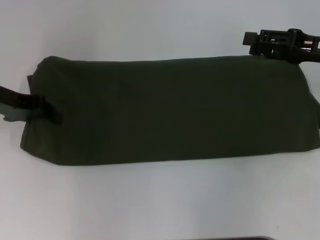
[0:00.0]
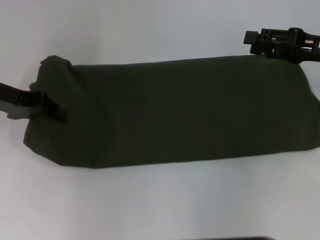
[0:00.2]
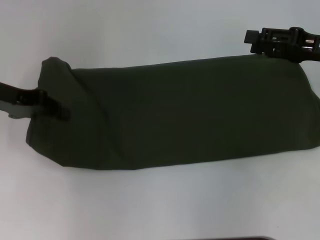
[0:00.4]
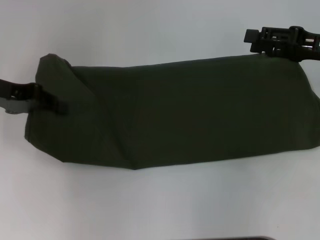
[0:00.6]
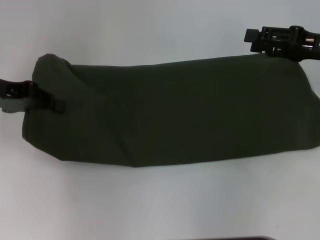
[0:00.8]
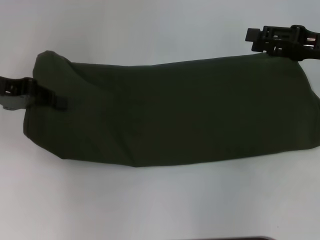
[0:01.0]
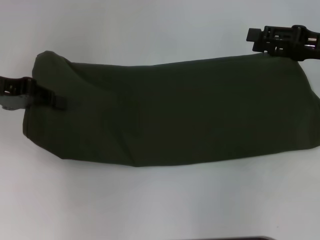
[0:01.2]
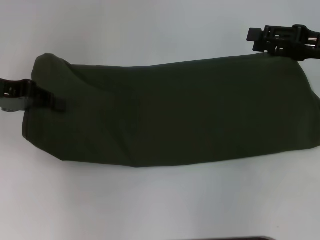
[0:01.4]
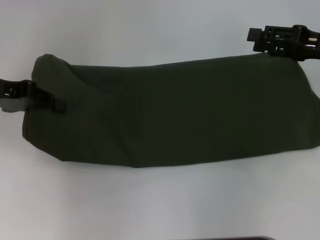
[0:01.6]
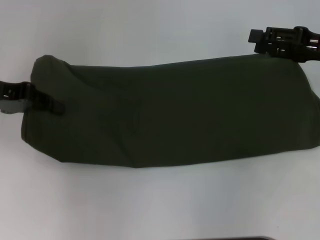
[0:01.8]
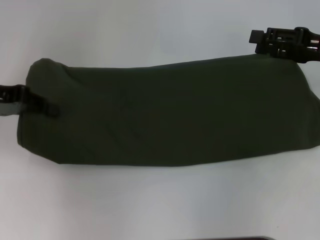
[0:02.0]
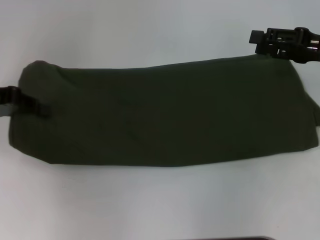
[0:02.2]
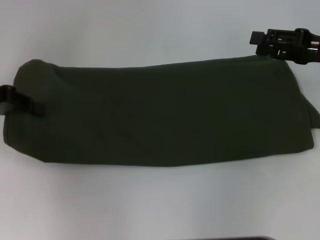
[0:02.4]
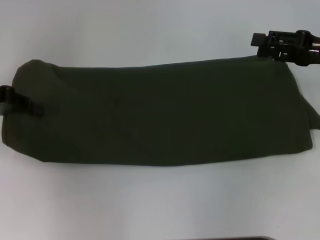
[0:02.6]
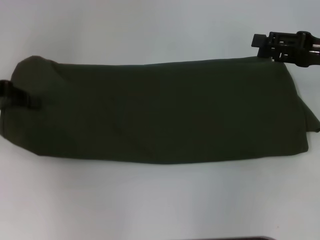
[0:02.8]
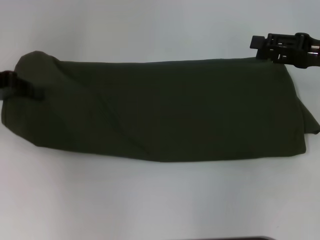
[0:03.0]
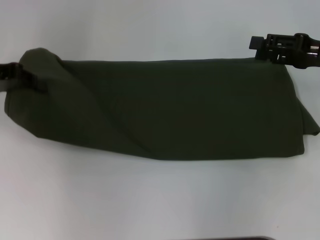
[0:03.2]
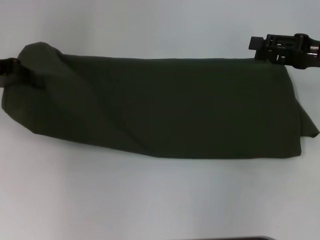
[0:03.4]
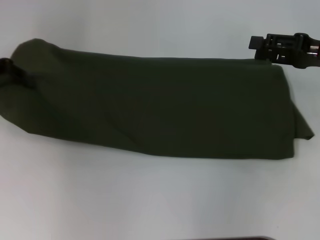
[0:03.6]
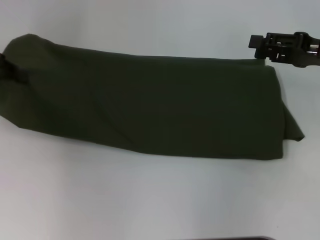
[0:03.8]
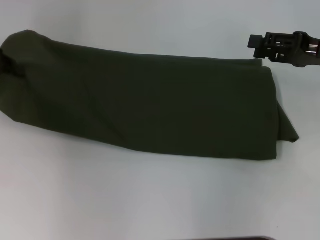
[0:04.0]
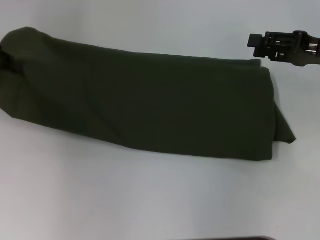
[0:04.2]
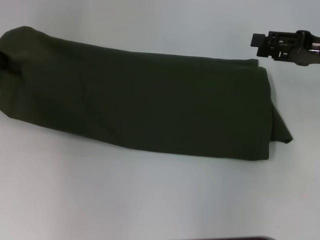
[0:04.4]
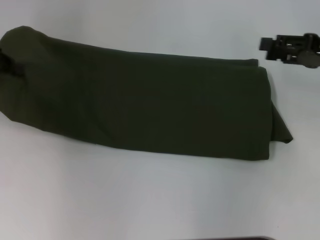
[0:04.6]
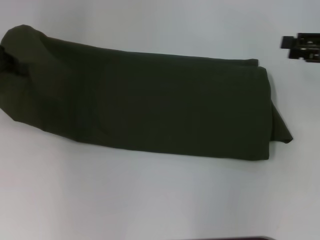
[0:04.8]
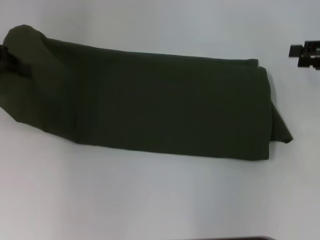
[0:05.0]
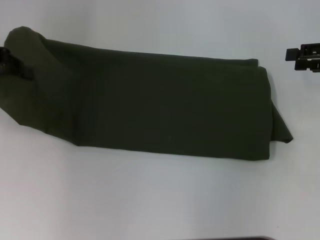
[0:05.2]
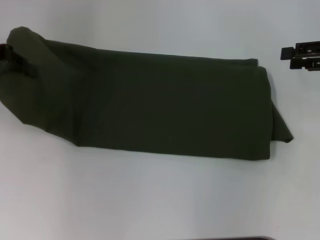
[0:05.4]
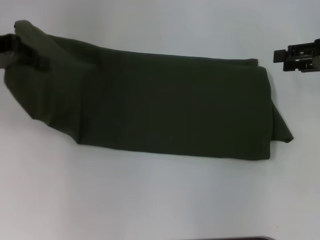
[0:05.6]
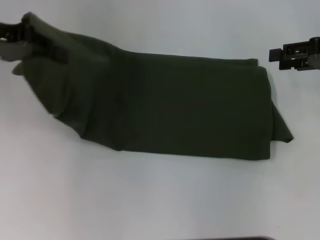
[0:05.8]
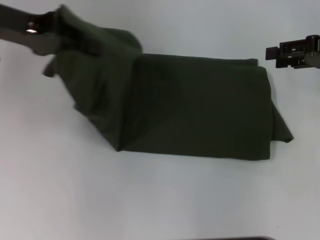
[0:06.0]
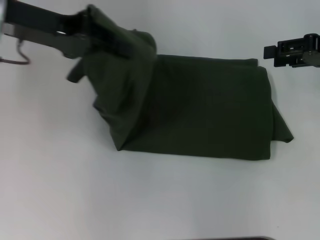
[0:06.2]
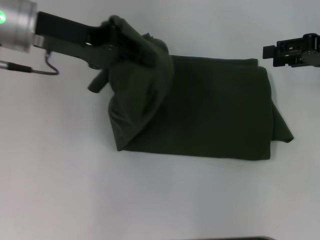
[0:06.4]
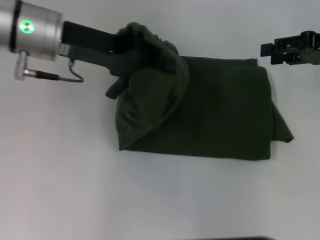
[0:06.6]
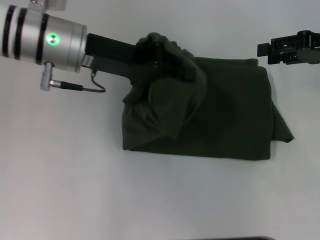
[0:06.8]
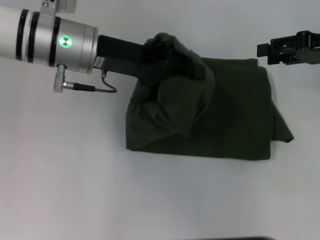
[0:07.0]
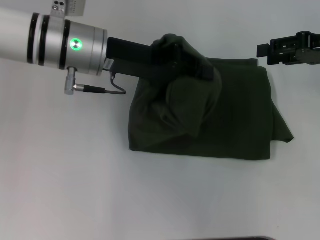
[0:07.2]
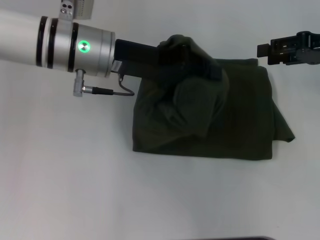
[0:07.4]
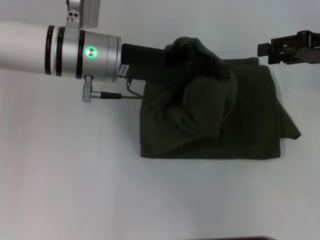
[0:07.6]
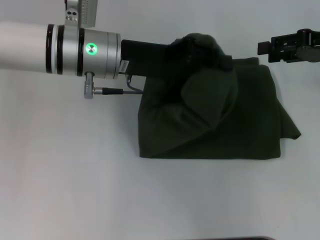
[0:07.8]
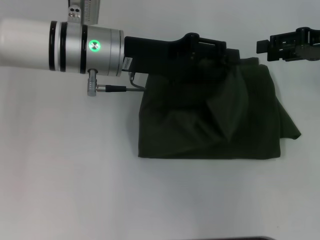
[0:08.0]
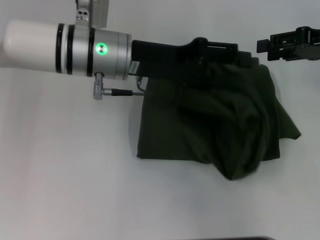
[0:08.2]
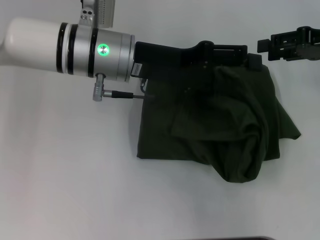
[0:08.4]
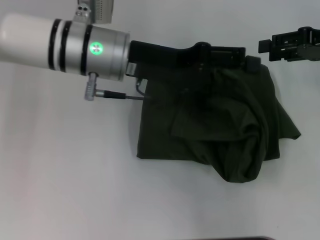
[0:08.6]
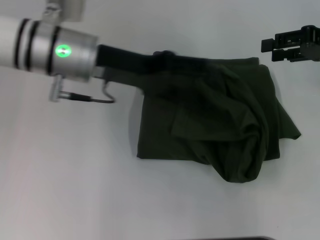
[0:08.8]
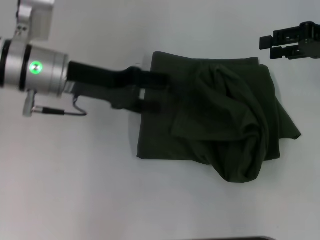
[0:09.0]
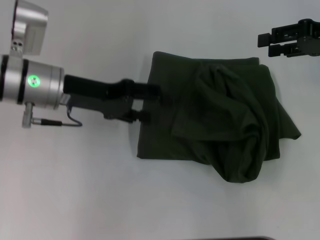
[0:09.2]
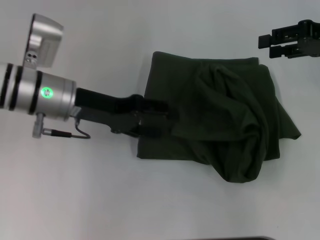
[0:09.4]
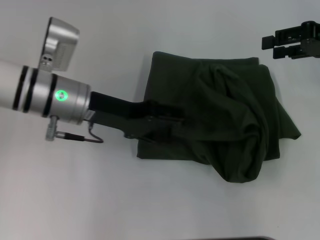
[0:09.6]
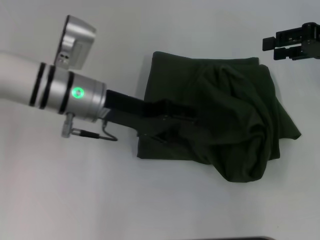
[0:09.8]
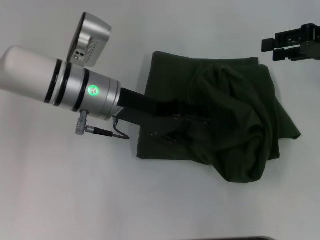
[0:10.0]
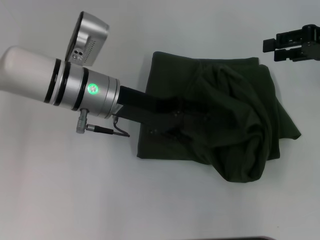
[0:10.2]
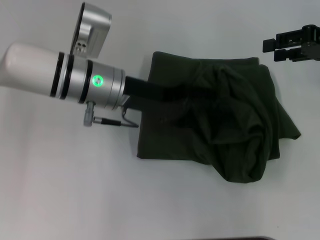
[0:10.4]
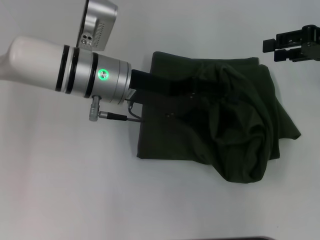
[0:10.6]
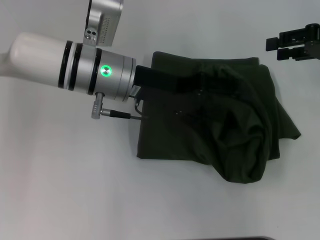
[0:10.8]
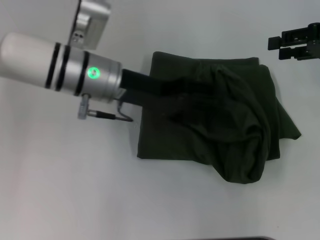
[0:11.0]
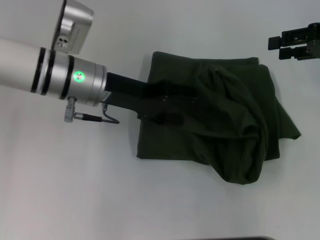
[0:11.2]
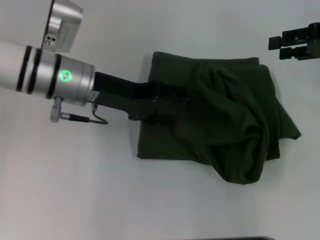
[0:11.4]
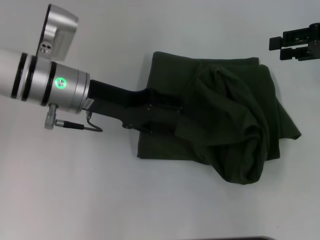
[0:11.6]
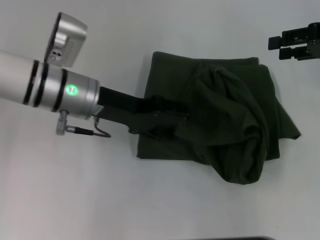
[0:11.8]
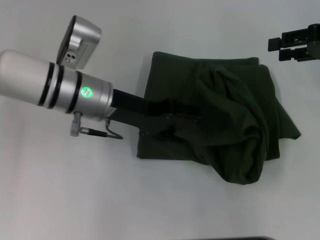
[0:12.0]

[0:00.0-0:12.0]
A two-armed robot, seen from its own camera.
0:00.0 to 0:03.0: The grippers make only small movements.
0:03.0 to 0:04.4: The grippers make only small movements.
0:04.4 to 0:06.0: The left gripper heads to the right and upward, covering some 10 cm.
0:06.0 to 0:07.6: The left gripper heads to the right and downward, covering some 15 cm.
0:07.6 to 0:09.0: The left gripper moves to the left, approximately 5 cm, and opens.
0:09.0 to 0:10.4: The left gripper is displaced to the right by roughly 5 cm.
0:10.4 to 0:12.0: The grippers make only small movements.

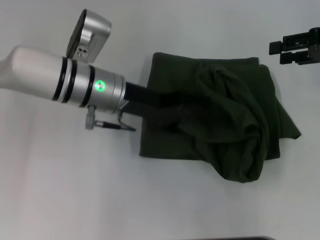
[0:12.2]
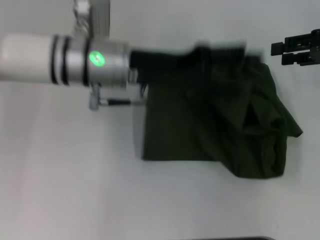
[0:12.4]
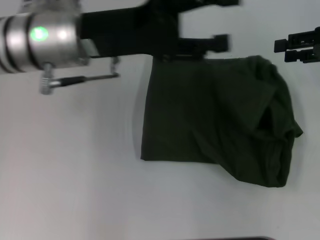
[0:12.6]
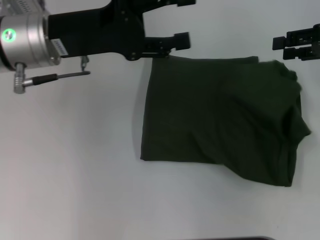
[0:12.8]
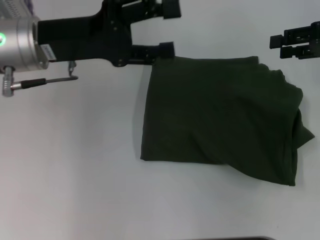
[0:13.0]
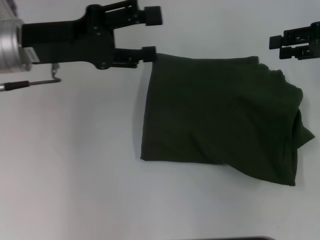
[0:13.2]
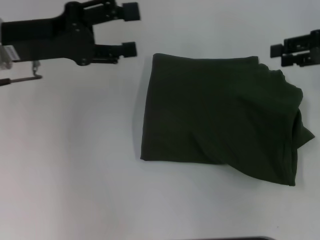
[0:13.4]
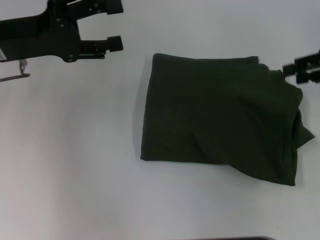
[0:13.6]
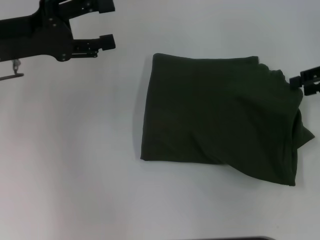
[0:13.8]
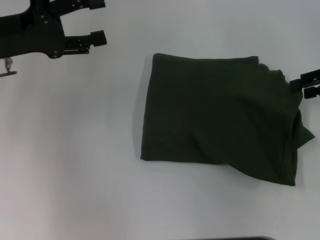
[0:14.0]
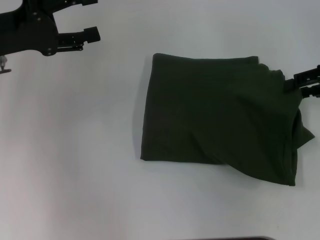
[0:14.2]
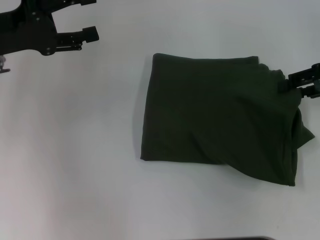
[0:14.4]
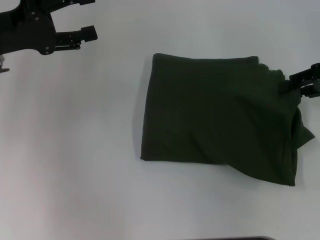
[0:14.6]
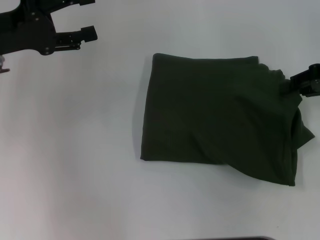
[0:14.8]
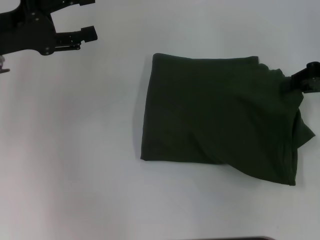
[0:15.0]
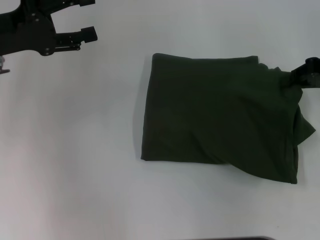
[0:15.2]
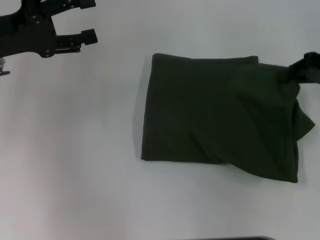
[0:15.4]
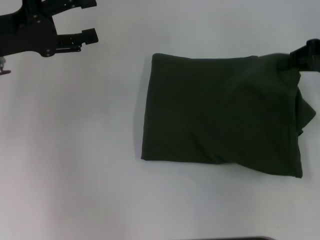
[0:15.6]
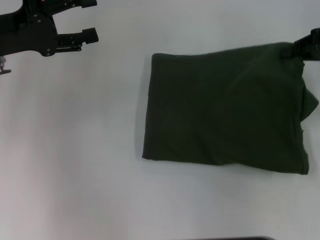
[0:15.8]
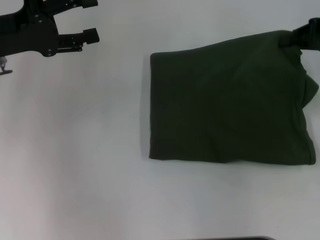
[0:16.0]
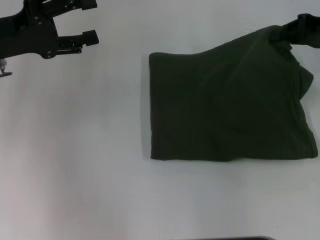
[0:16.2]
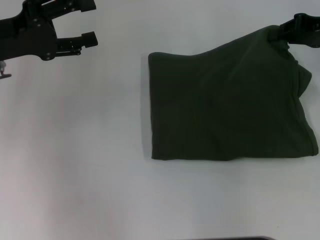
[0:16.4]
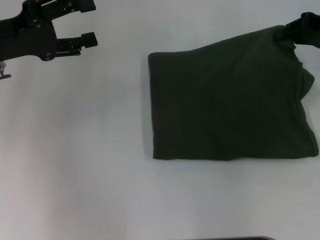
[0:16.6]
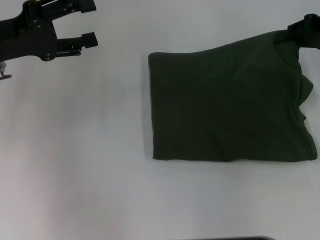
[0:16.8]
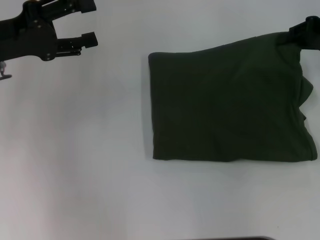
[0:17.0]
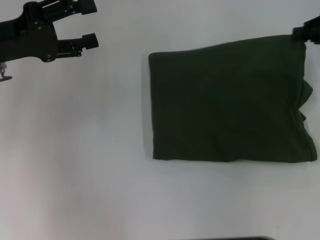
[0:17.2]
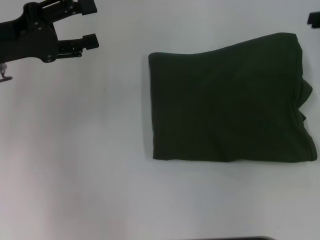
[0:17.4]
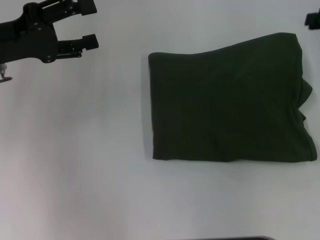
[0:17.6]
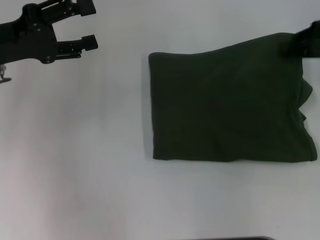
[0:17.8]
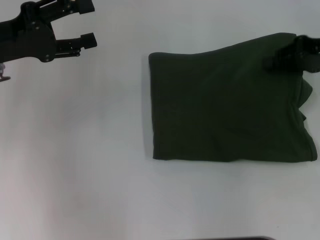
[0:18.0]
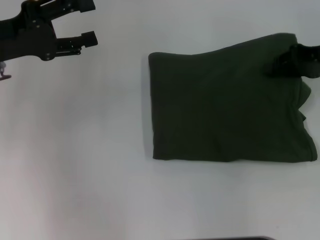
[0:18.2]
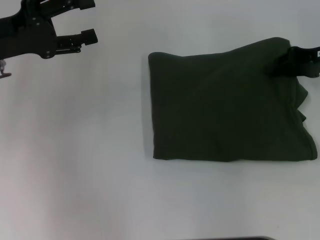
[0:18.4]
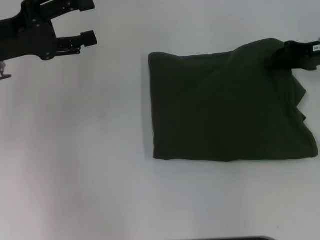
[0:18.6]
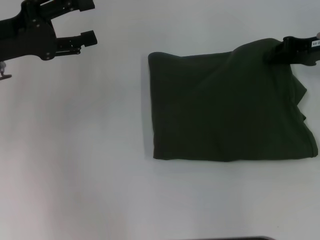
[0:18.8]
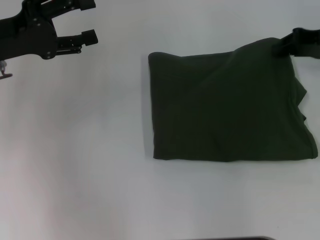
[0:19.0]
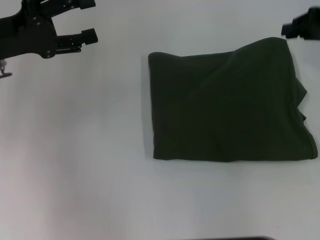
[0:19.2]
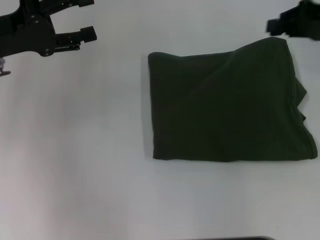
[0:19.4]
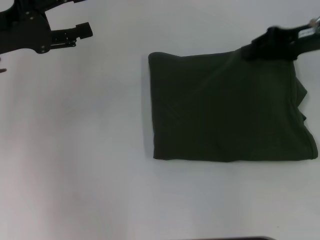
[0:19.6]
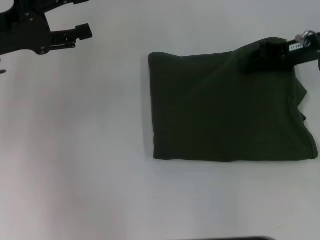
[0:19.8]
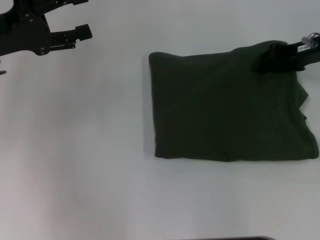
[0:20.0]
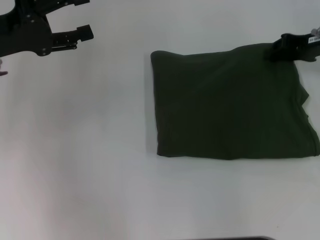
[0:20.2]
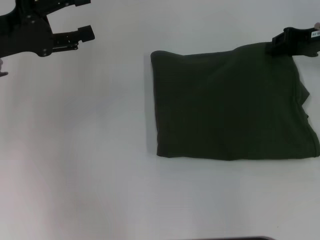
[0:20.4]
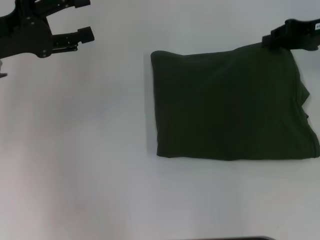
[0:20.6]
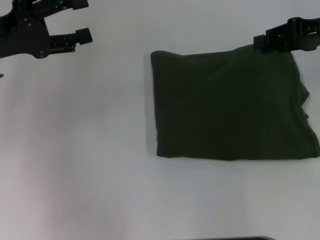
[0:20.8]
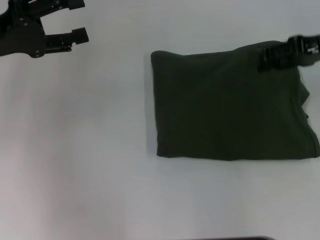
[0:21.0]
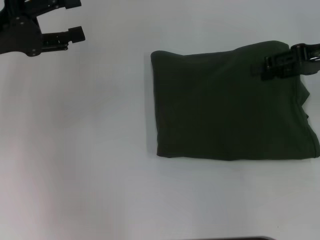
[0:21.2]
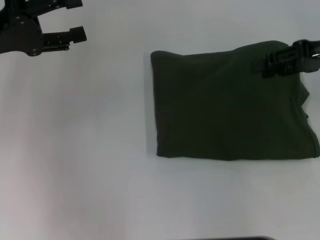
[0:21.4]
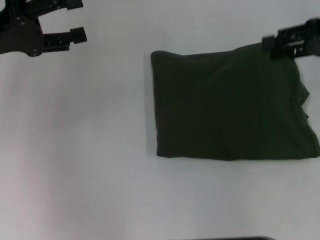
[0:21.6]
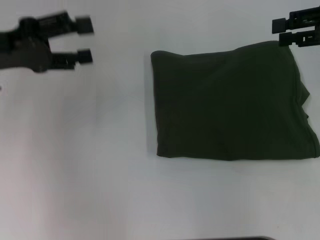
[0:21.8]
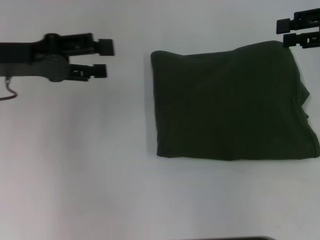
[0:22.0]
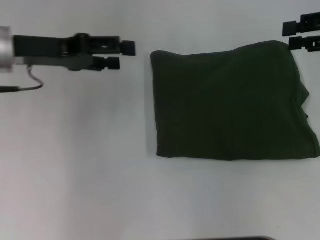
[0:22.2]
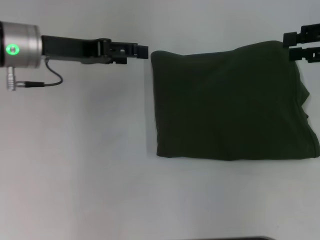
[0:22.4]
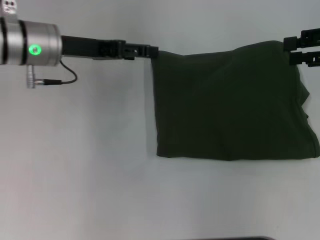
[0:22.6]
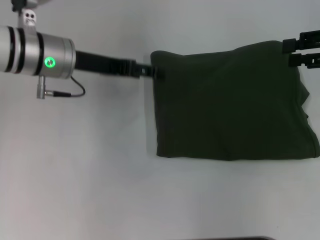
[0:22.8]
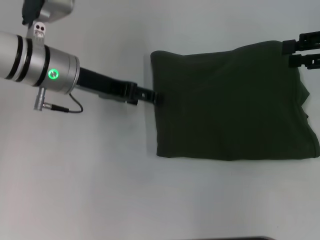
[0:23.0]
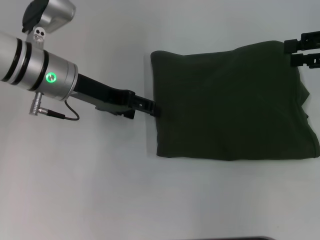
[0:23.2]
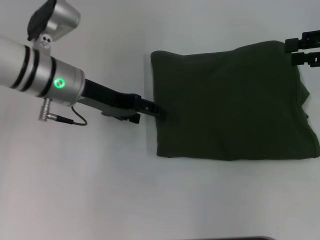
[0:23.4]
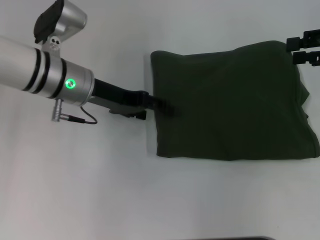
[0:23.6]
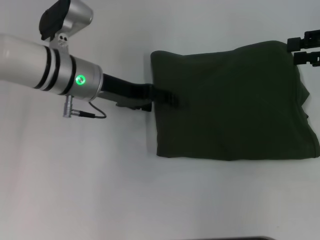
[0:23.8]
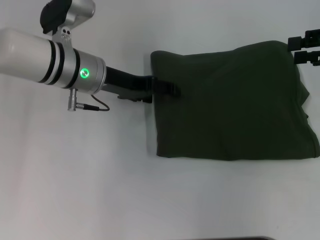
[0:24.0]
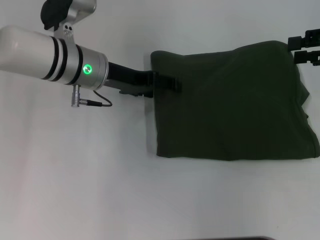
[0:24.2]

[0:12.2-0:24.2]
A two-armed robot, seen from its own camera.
0:12.2 to 0:13.8: The left gripper moves to the left, approximately 15 cm.
0:13.8 to 0:15.2: The right gripper closes up.
0:15.2 to 0:16.6: The grippers make only small movements.
0:16.6 to 0:19.8: There are only small adjustments of the grippers.
0:19.8 to 0:21.2: The right gripper changes place by roughly 5 cm, and opens up.
0:21.2 to 0:22.6: The left gripper goes about 10 cm to the right and forward.
0:22.6 to 0:24.2: The left gripper heads to the right, covering approximately 5 cm.
